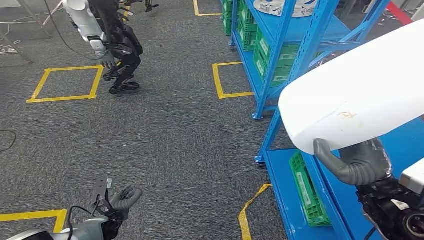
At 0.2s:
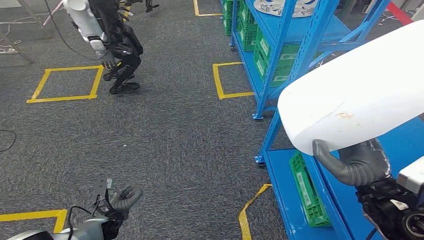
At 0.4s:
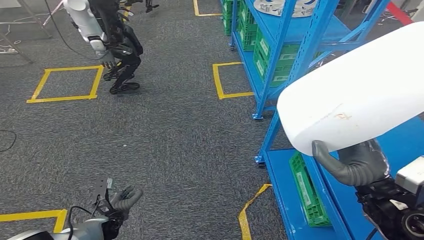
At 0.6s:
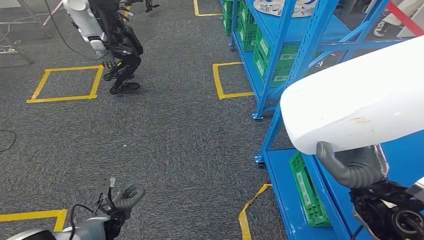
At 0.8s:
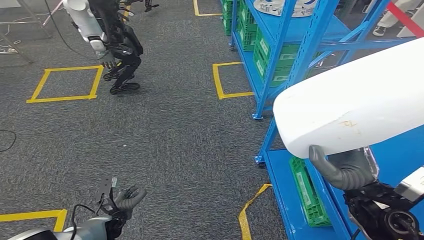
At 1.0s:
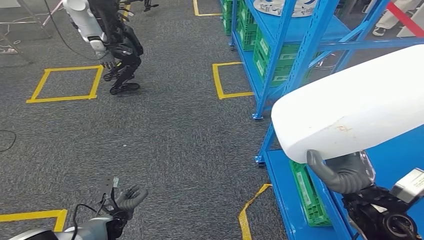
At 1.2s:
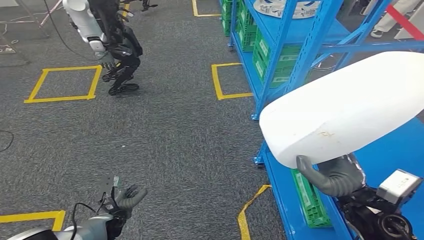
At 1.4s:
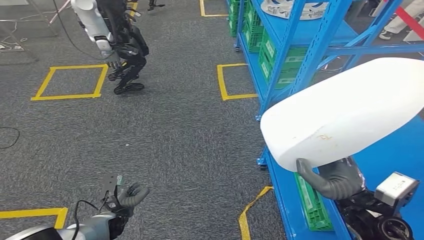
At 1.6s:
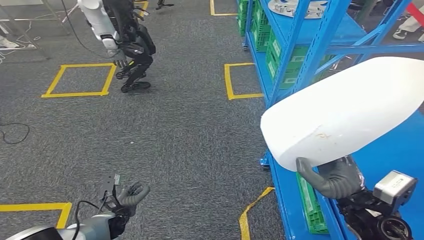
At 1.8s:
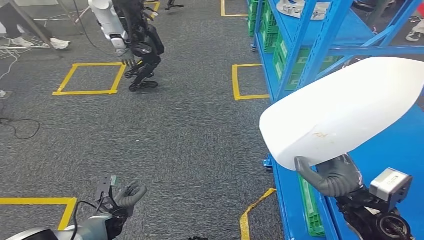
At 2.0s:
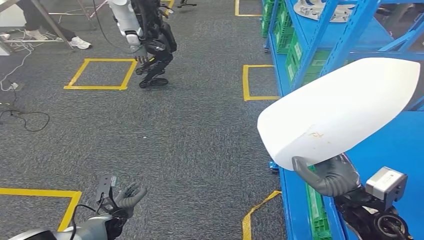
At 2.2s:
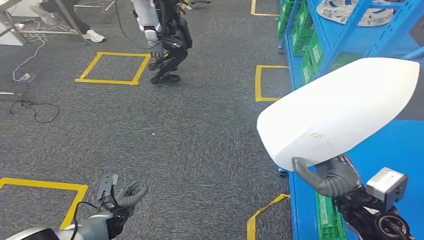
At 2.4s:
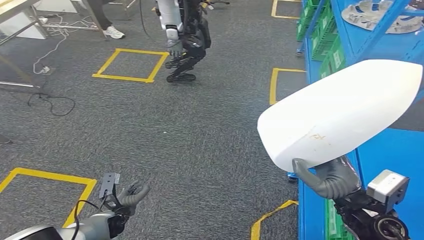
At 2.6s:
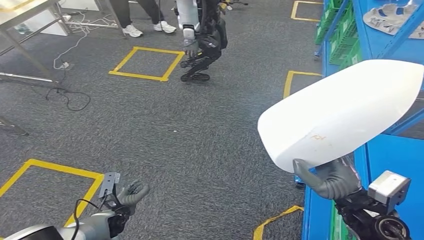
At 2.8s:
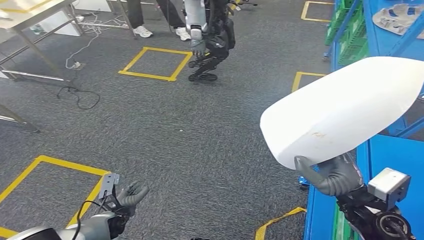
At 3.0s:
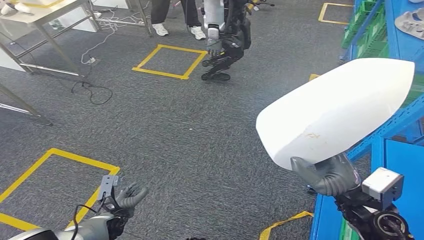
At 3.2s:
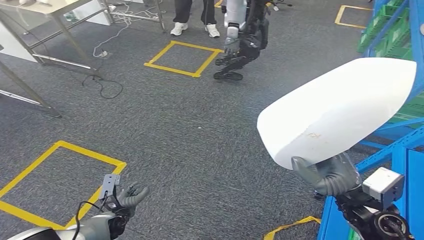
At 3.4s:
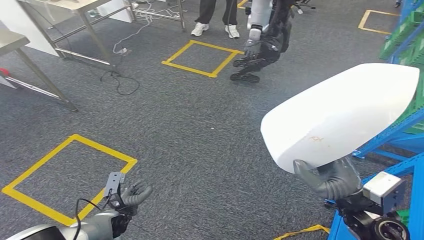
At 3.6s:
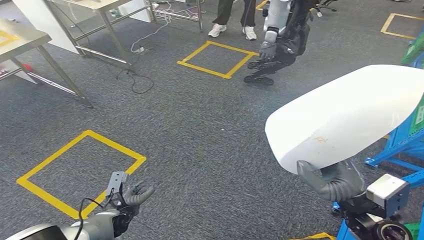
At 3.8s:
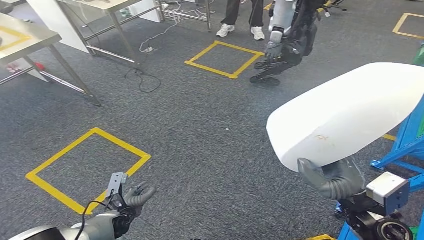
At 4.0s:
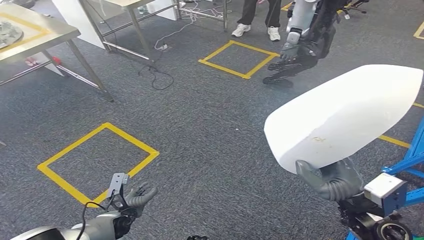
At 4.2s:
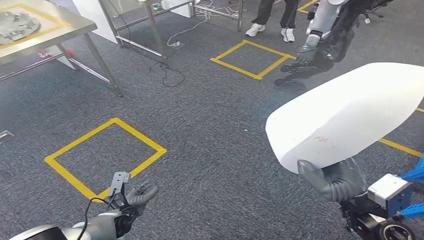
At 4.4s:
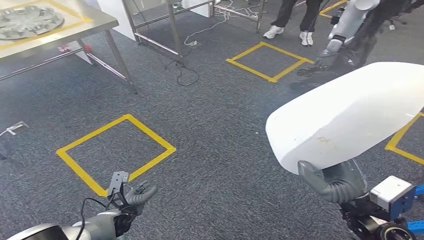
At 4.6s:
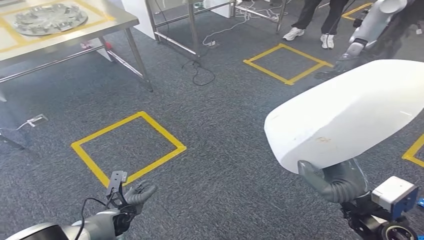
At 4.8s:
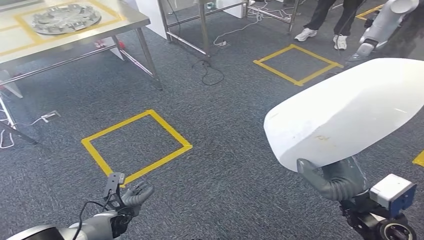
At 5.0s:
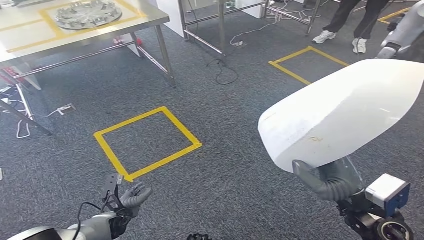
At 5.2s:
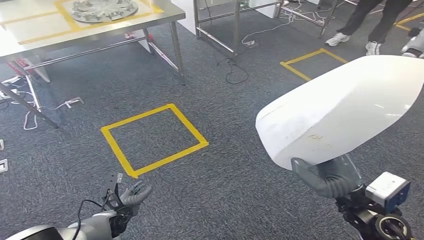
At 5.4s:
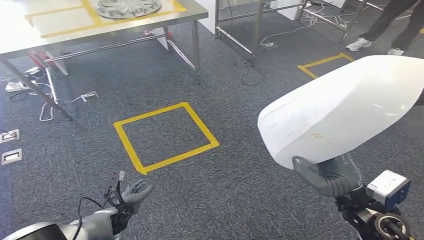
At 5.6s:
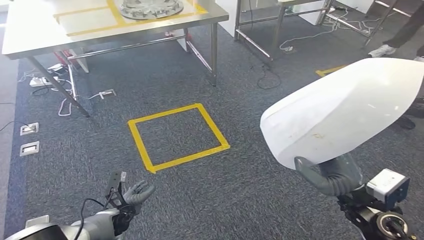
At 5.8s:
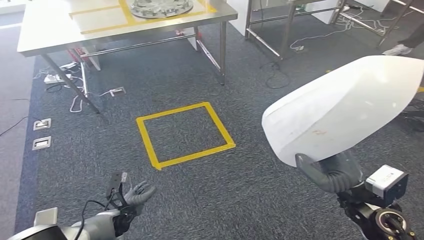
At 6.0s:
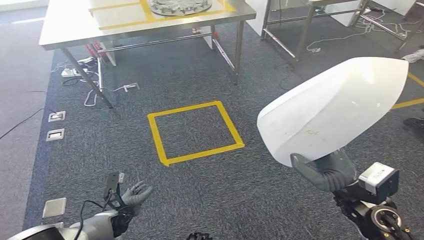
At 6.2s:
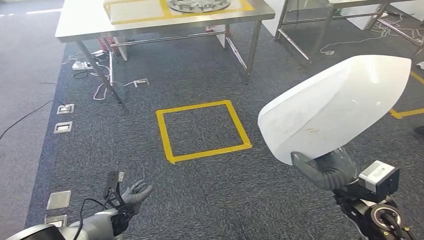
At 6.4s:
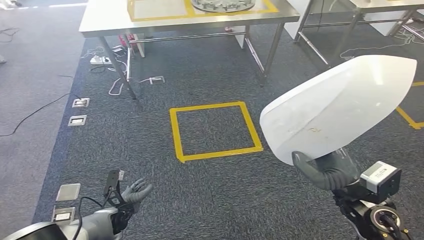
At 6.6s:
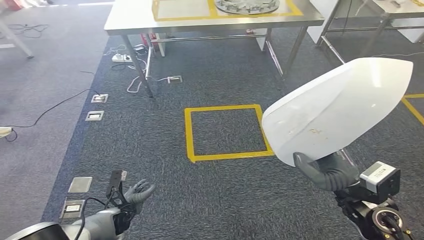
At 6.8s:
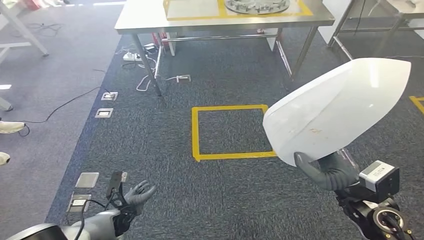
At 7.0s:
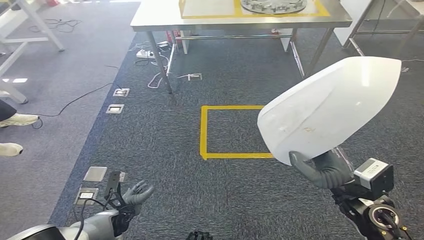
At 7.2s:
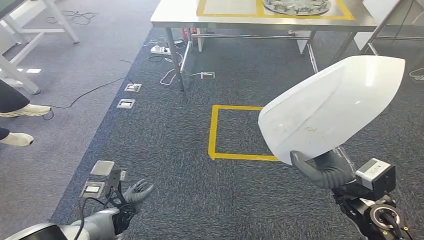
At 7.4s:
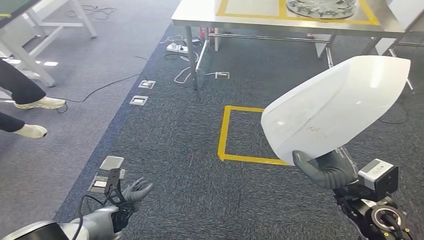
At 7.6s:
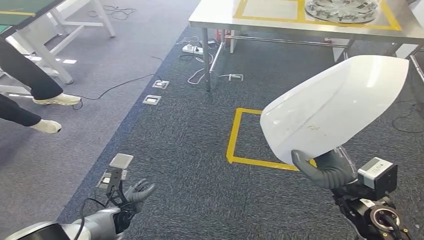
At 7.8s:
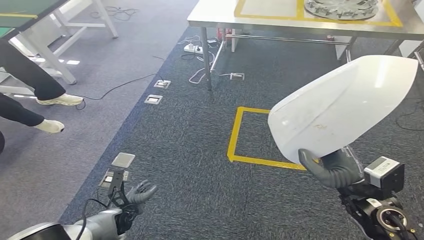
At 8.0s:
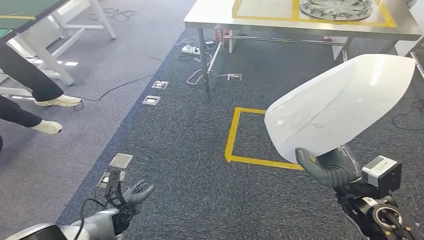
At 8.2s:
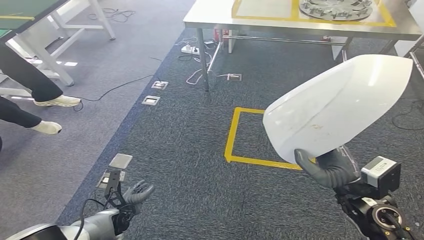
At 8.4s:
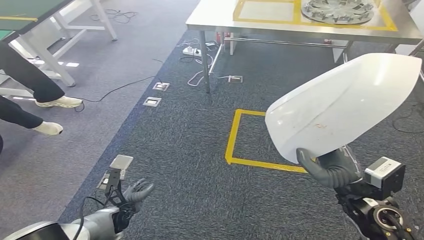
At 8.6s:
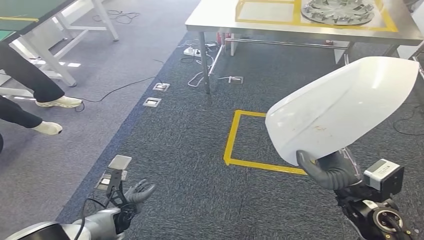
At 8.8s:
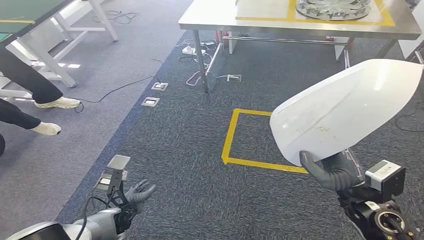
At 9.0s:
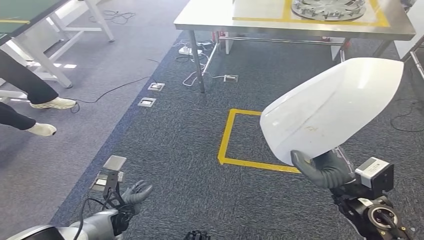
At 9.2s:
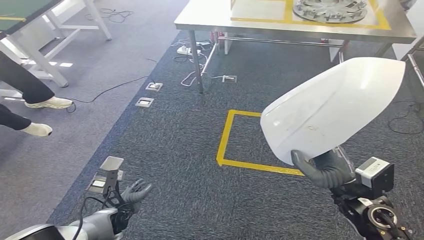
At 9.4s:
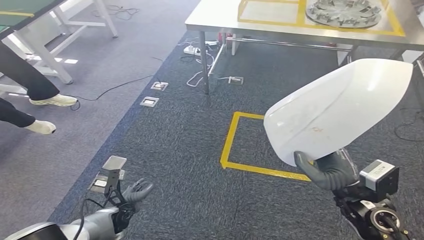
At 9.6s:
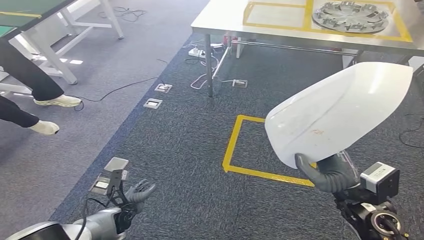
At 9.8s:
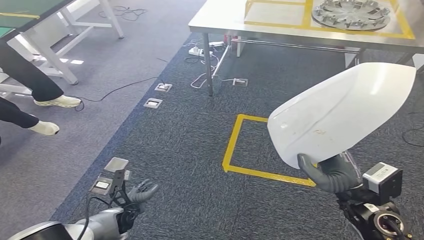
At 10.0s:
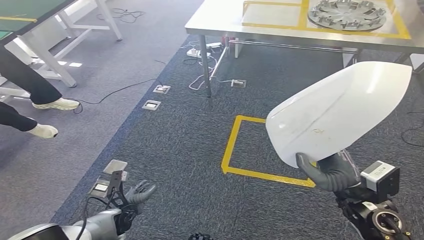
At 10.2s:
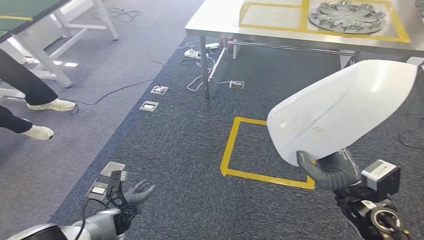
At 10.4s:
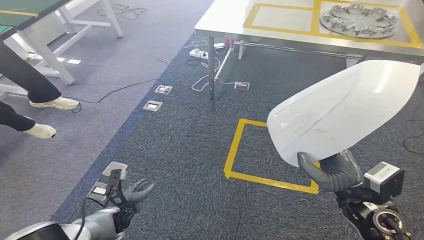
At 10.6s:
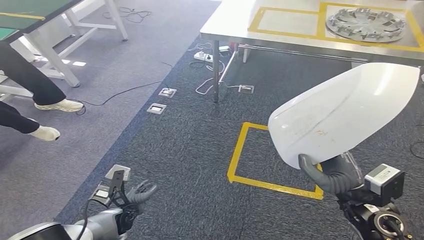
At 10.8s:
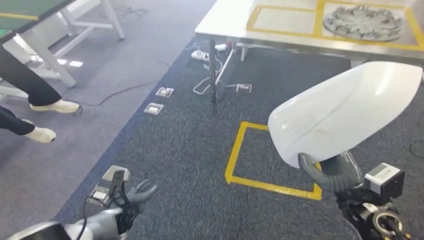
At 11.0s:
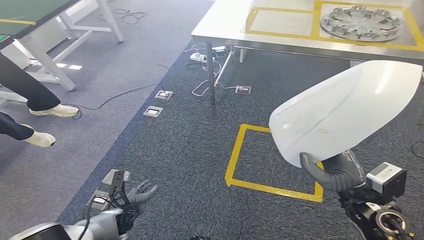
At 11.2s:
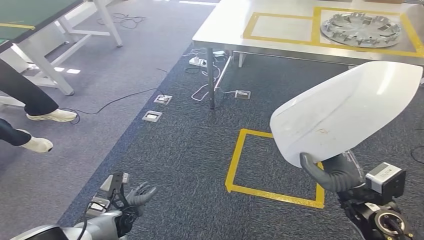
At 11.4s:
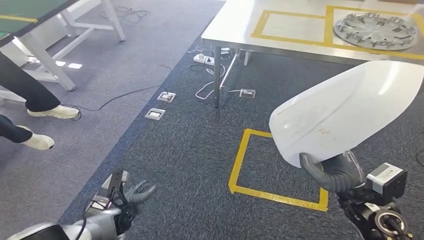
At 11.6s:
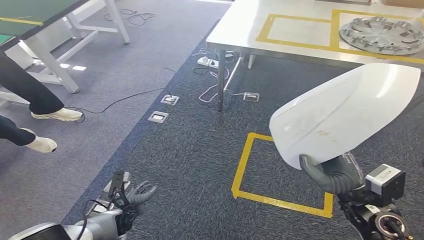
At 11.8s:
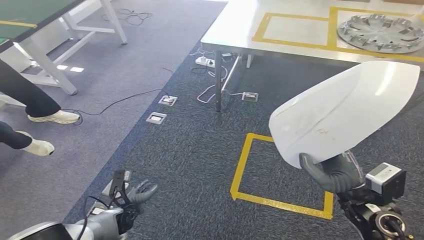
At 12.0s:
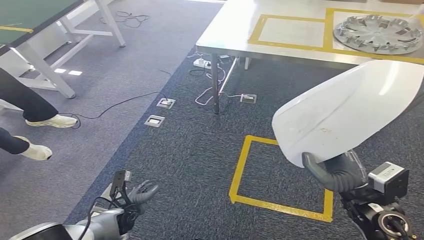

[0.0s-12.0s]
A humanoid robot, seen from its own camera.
7.6s to 9.0s: Neither hand changes place.

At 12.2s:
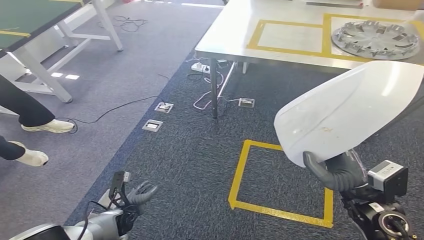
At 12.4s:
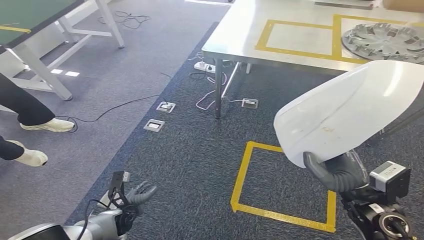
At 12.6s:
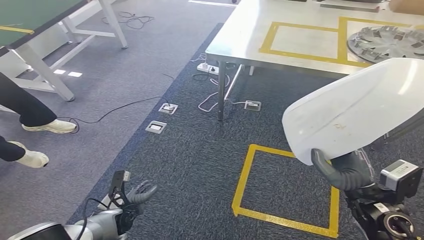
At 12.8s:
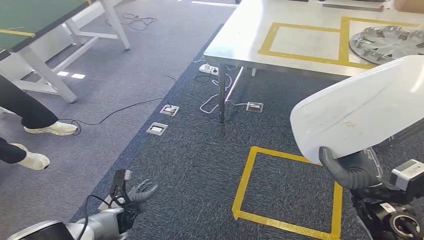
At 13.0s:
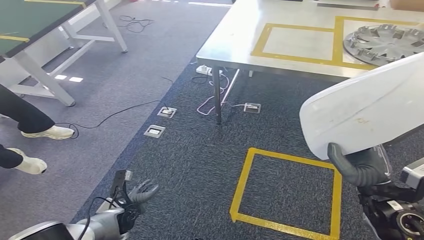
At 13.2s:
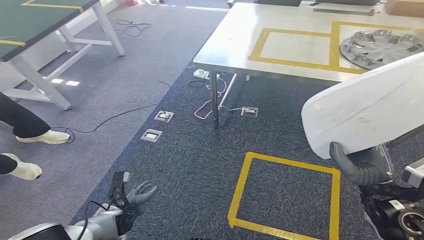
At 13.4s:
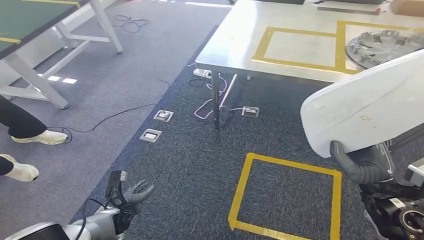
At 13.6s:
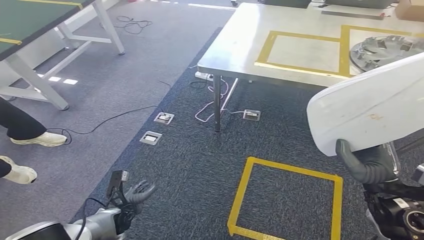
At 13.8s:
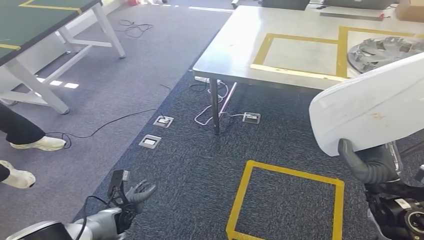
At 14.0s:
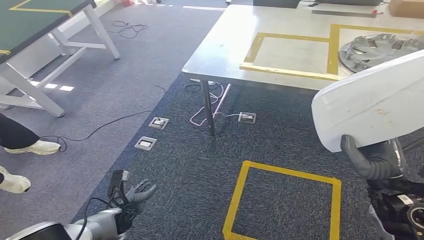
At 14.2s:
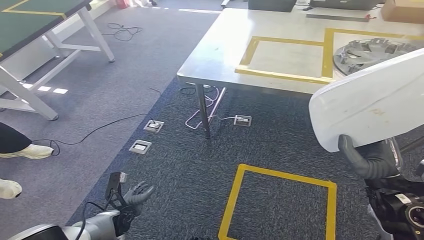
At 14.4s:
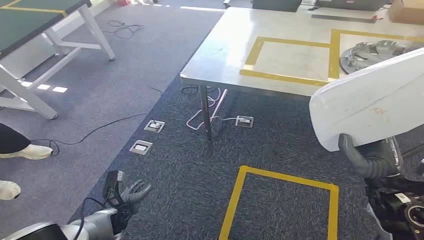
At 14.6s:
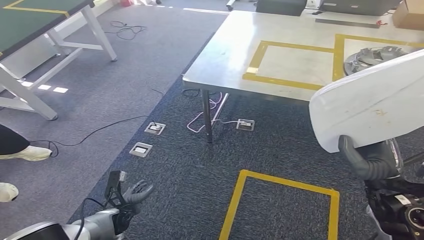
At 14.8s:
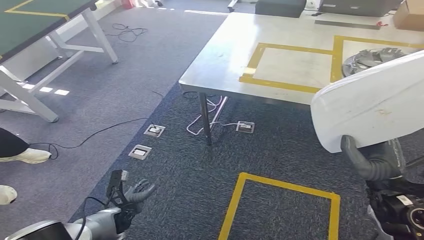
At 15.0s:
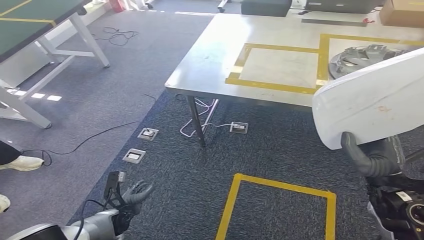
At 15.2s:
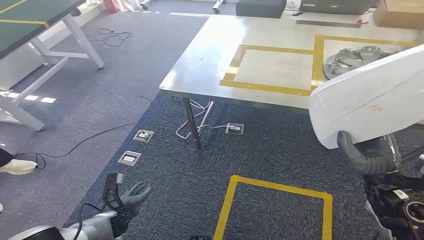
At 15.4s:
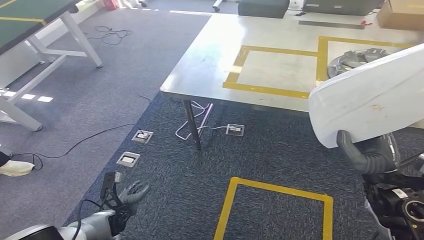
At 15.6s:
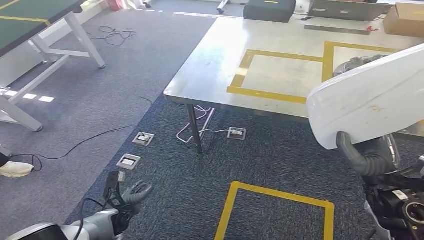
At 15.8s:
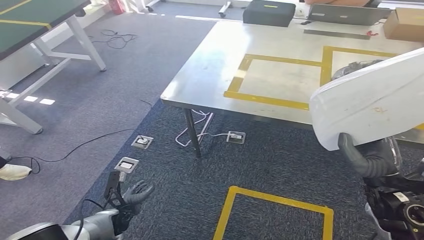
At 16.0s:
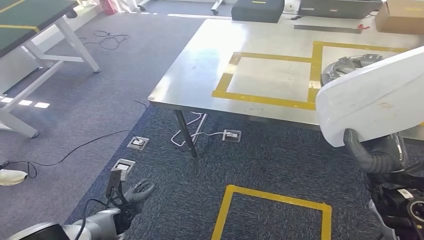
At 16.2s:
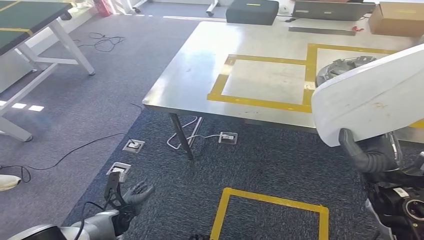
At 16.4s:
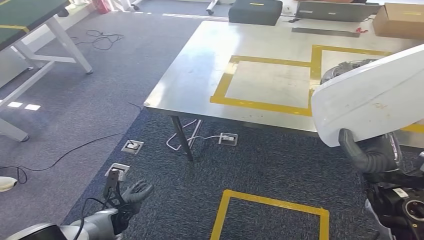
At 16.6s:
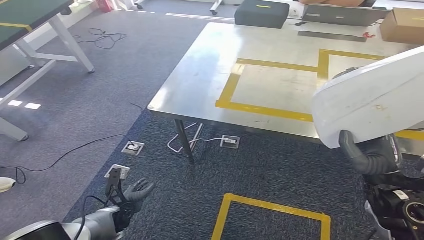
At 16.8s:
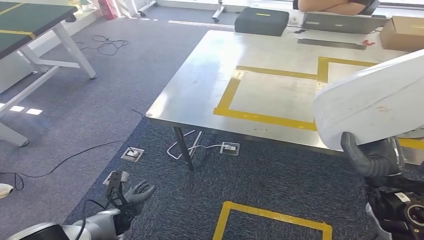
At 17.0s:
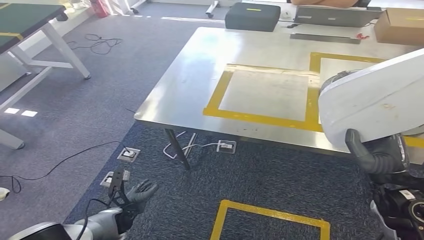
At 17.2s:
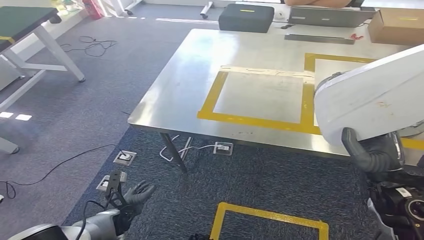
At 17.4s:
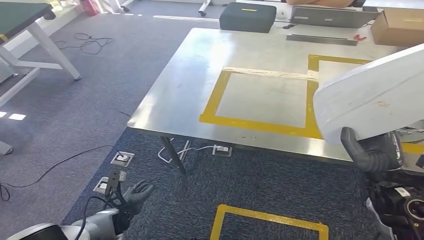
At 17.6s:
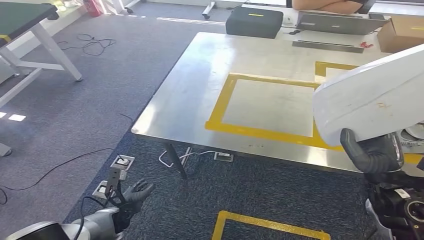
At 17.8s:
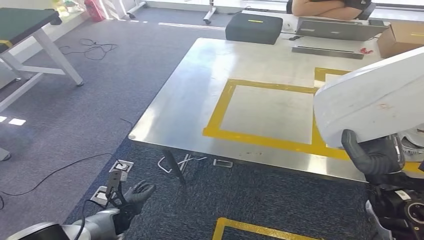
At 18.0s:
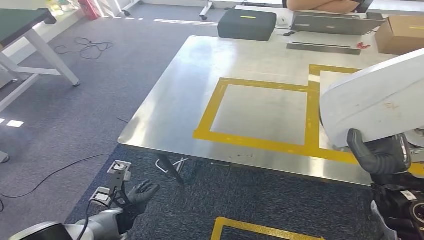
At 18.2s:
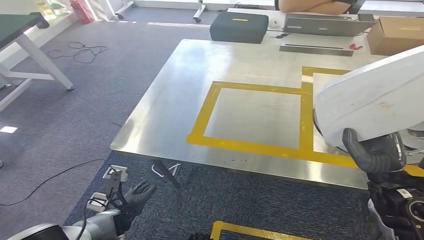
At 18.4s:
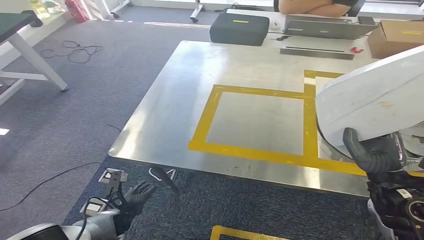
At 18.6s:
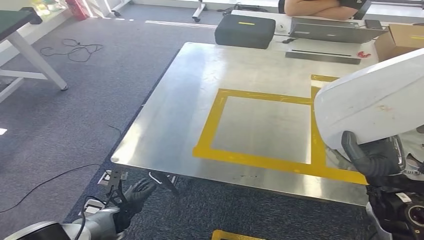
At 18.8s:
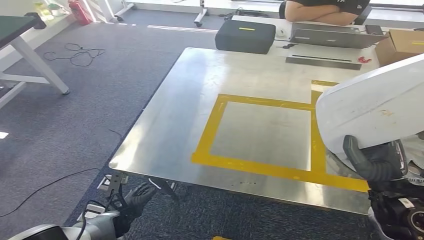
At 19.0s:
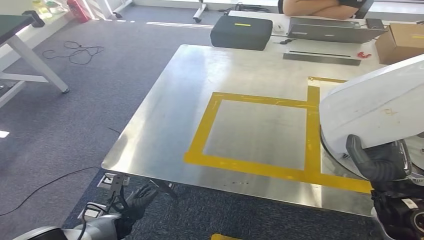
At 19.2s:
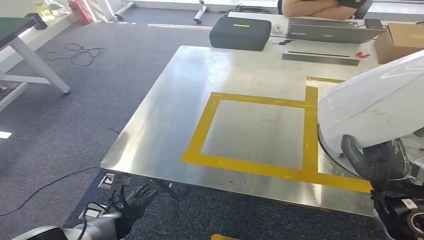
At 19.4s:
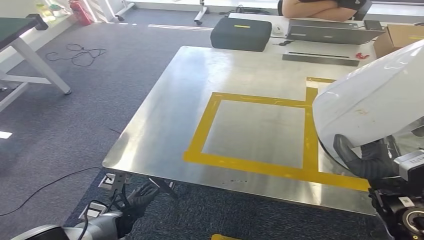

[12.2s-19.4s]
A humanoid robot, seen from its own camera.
Step, 12.2s to 18.4s: Move the small component to the workbench.
